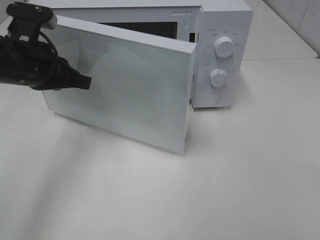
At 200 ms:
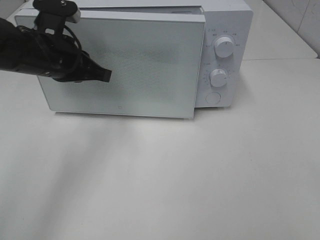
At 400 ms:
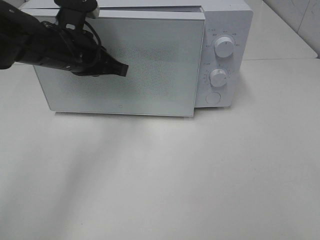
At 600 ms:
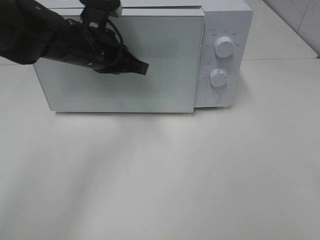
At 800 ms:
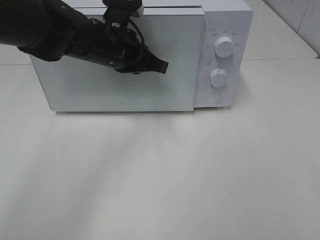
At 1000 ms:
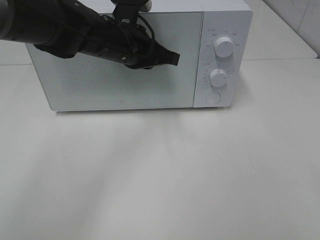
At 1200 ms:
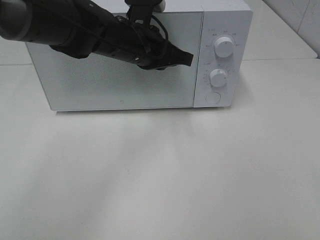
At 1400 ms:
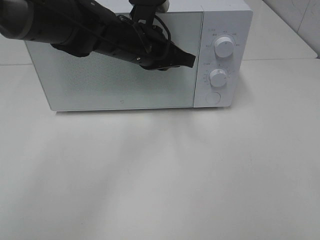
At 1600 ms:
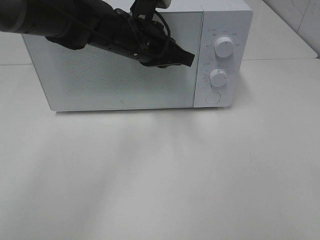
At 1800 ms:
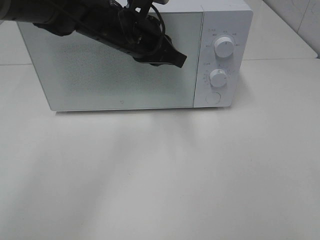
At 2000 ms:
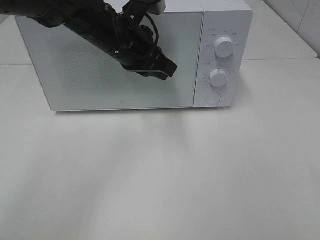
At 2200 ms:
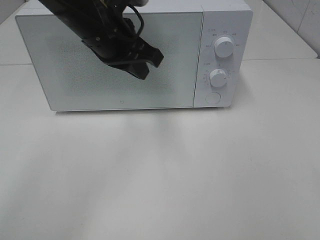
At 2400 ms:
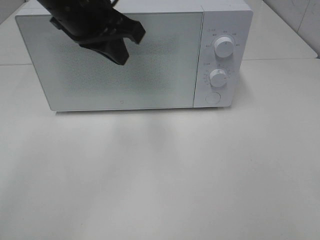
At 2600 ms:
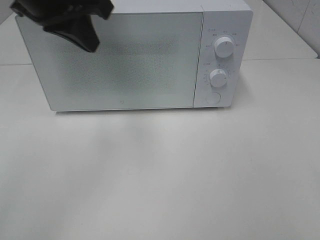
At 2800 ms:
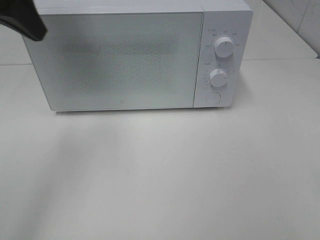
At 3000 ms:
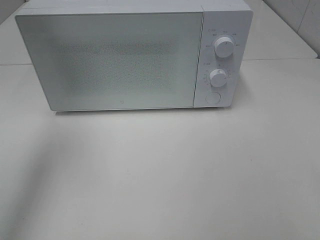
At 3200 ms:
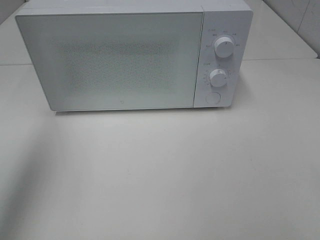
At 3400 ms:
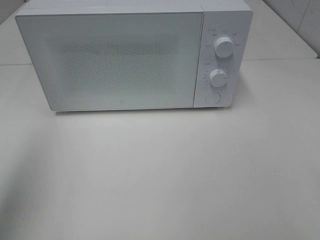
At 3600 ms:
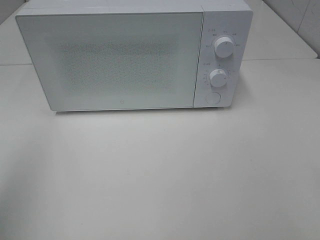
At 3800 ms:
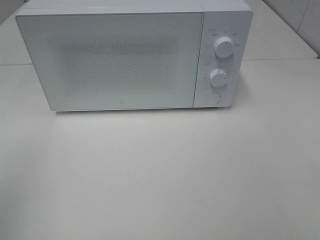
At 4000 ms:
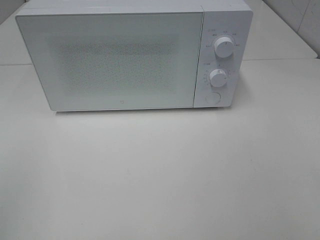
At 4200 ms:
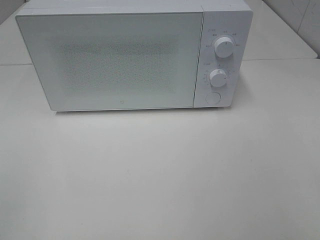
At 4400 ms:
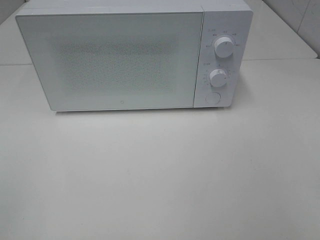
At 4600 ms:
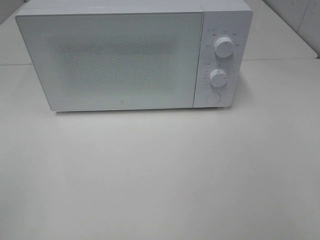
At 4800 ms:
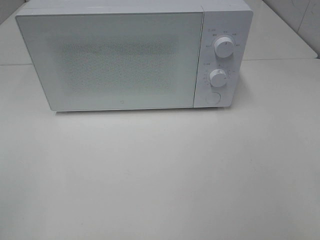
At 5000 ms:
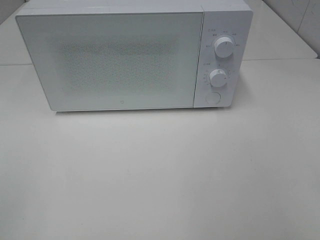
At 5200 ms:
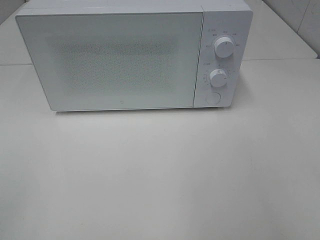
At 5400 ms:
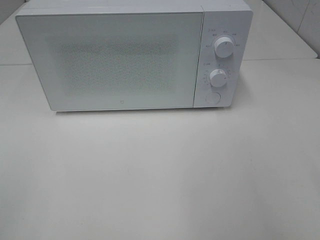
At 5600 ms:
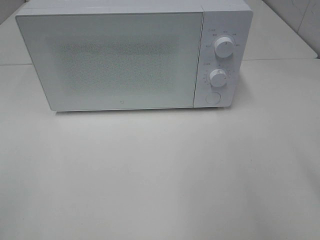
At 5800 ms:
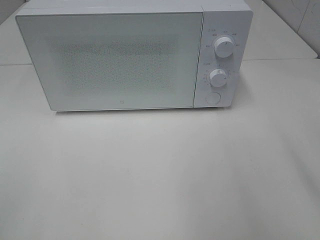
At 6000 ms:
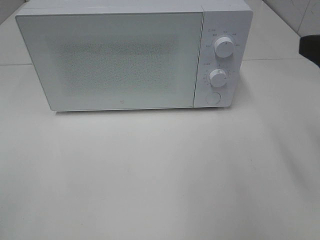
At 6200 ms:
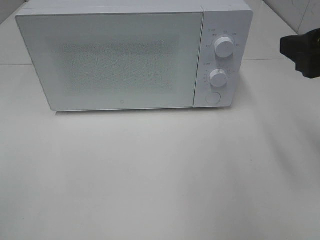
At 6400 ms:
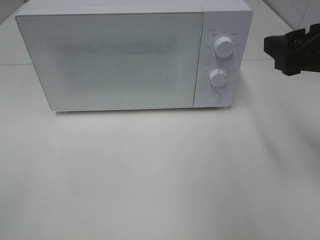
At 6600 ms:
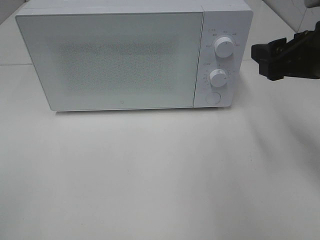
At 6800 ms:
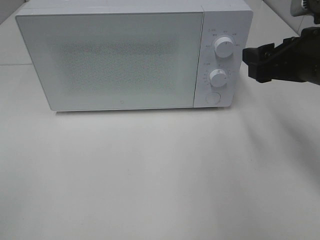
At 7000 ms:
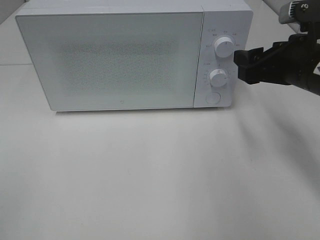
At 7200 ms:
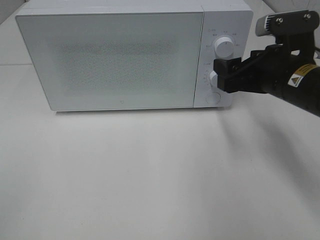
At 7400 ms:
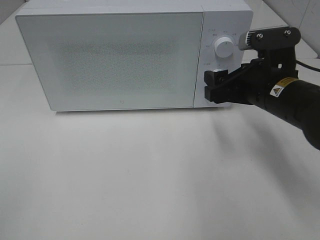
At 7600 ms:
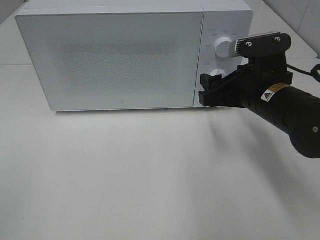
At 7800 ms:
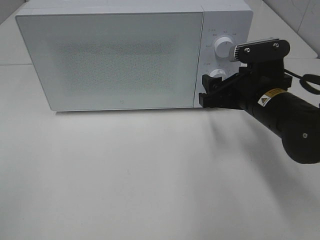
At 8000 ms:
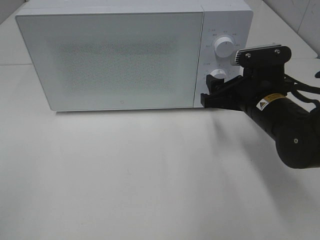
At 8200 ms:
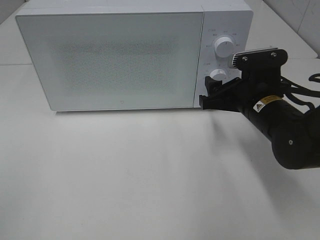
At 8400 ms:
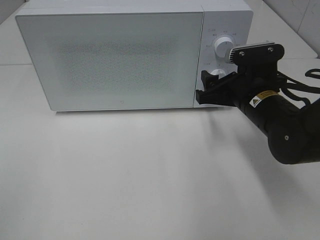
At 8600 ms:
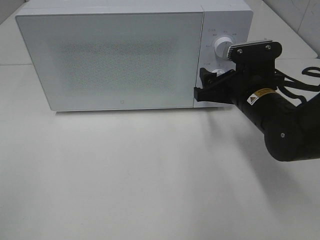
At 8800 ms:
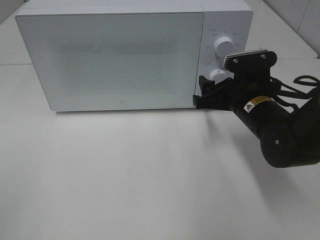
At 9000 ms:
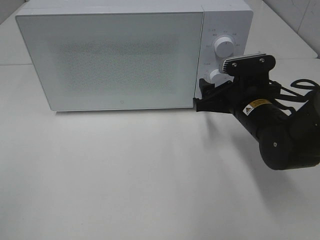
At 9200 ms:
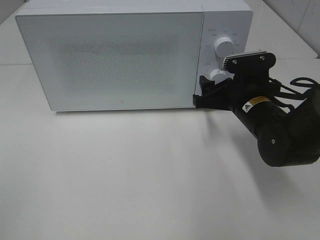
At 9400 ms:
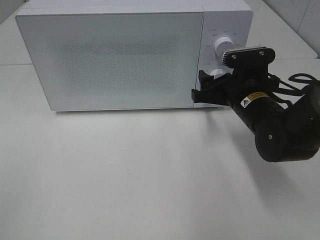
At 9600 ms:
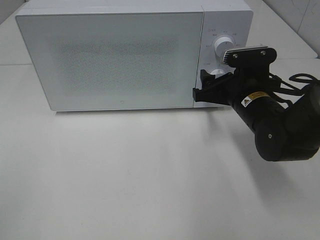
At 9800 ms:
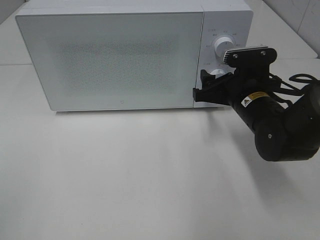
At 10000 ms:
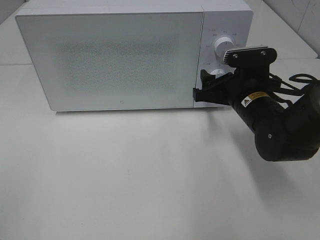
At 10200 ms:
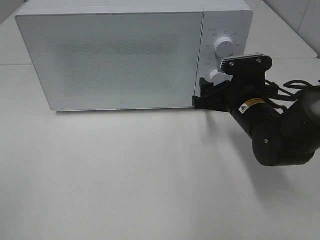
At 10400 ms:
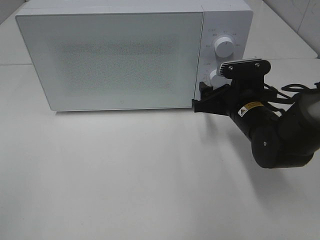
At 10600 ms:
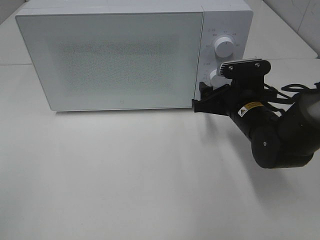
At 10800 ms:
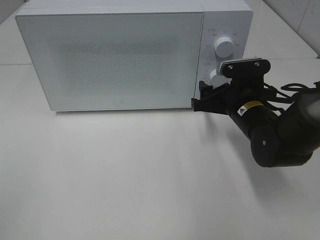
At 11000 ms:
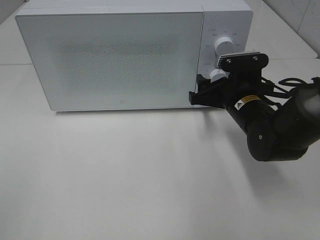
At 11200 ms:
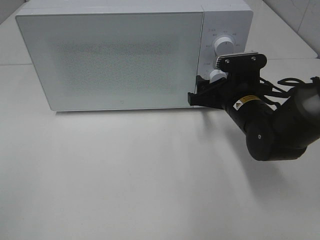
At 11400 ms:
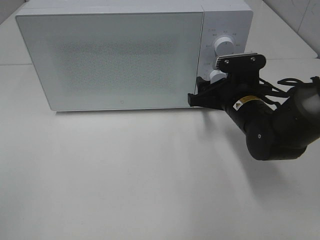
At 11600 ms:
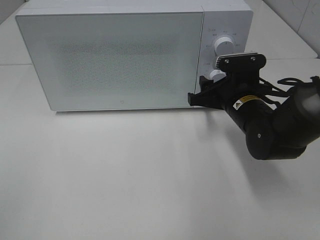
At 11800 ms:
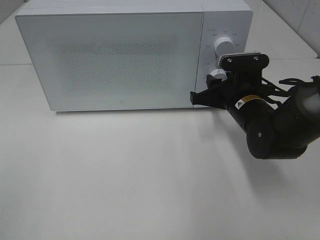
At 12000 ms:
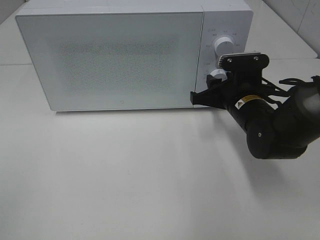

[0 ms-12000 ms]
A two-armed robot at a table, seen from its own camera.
Task of the whole recording: Heat the burger.
0 ms to 1600 ms: The left gripper moves to the right and forward, approximately 15 cm.
1600 ms to 3000 ms: The left gripper moves to the left, upward and backward, some 30 cm.
3000 ms to 4400 ms: The left gripper travels backward by about 25 cm.
4400 ms to 6000 ms: The right gripper travels forward by some 15 cm.
6000 ms to 7600 ms: The right gripper travels downward, forward and to the left by approximately 20 cm.
7600 ms to 9000 ms: The right gripper changes place by about 5 cm.
9000 ms to 10400 ms: The grippers move only a little.
10400 ms to 12000 ms: The right gripper closes.

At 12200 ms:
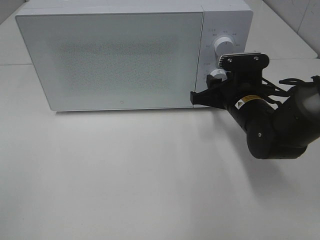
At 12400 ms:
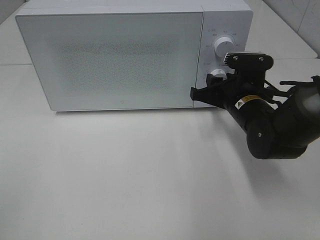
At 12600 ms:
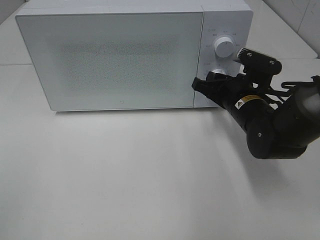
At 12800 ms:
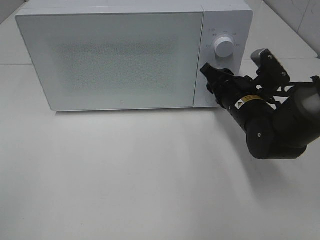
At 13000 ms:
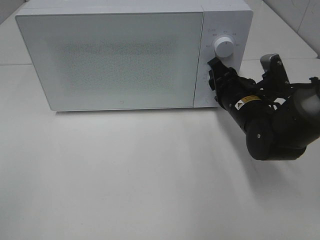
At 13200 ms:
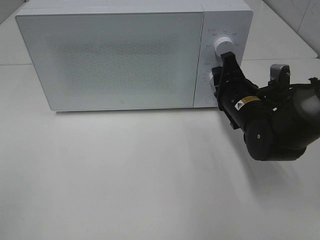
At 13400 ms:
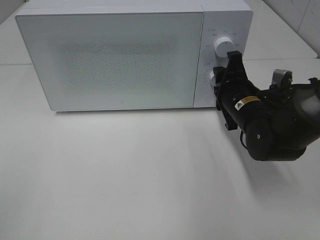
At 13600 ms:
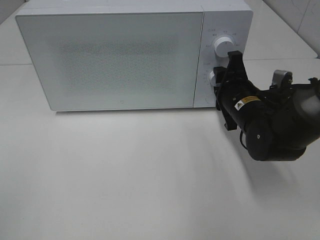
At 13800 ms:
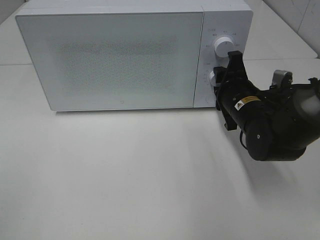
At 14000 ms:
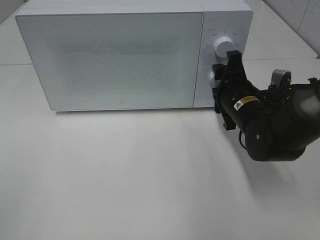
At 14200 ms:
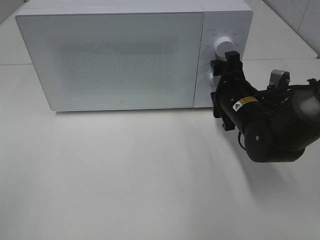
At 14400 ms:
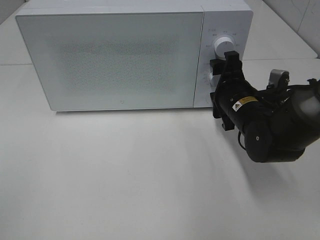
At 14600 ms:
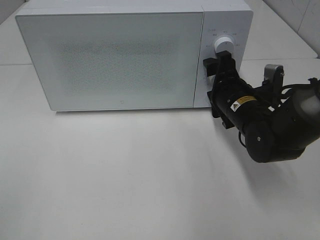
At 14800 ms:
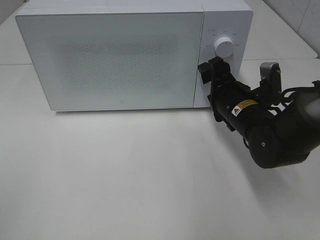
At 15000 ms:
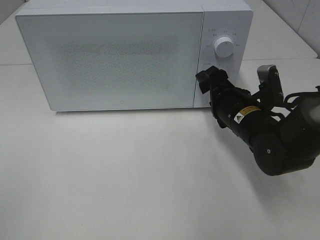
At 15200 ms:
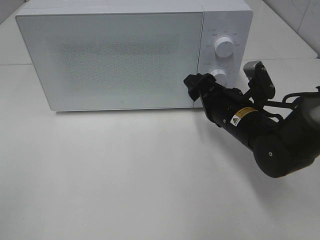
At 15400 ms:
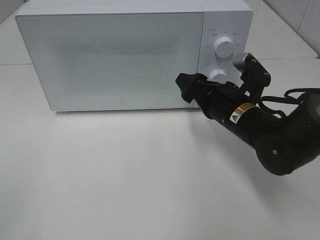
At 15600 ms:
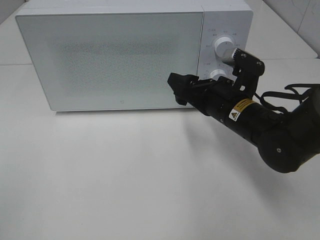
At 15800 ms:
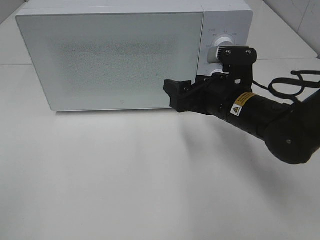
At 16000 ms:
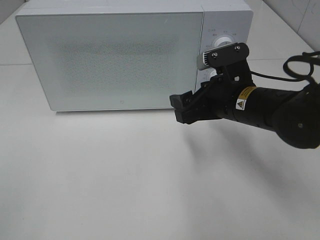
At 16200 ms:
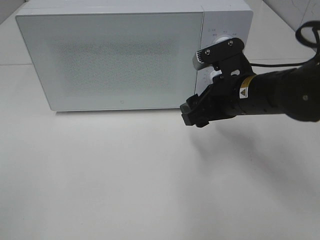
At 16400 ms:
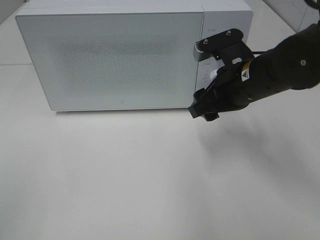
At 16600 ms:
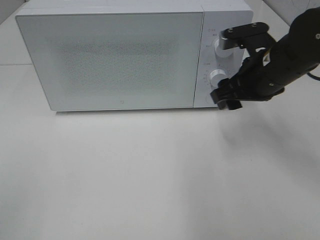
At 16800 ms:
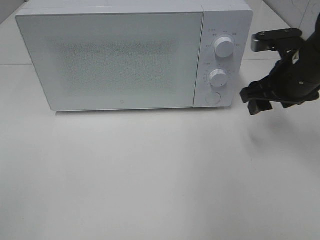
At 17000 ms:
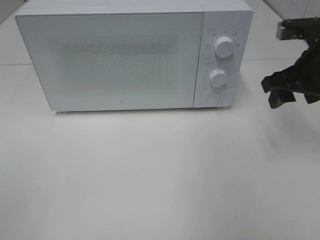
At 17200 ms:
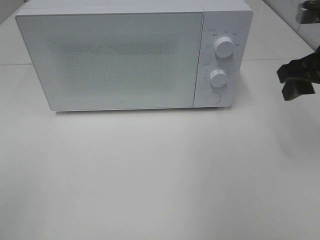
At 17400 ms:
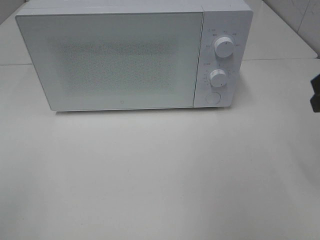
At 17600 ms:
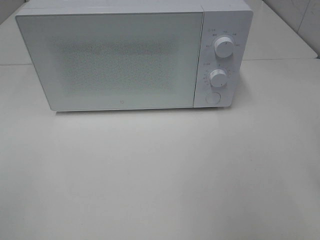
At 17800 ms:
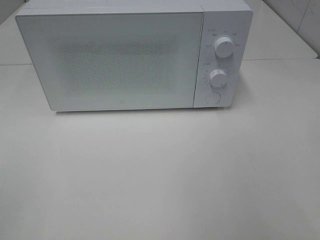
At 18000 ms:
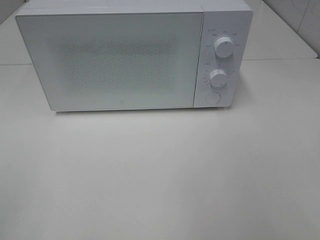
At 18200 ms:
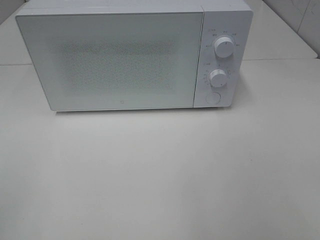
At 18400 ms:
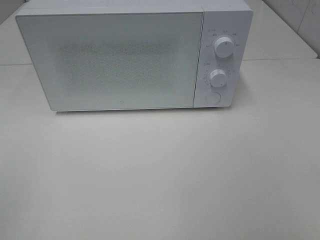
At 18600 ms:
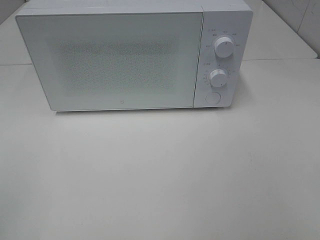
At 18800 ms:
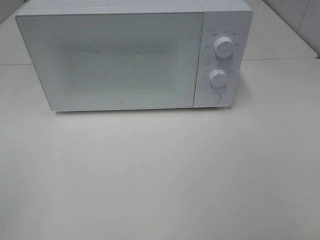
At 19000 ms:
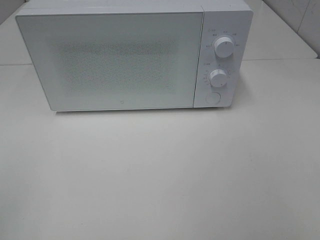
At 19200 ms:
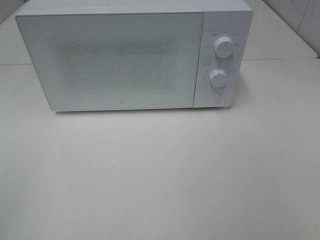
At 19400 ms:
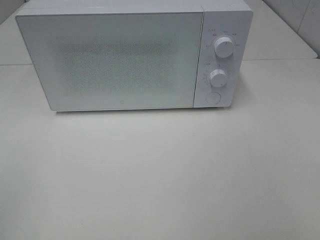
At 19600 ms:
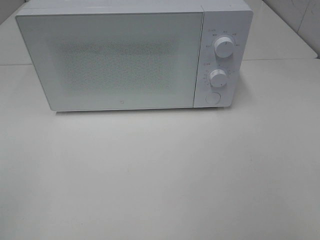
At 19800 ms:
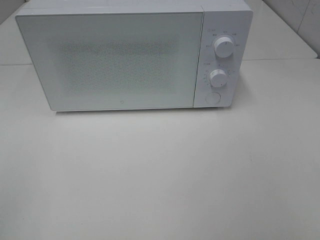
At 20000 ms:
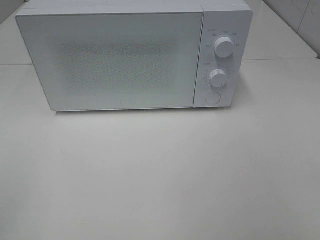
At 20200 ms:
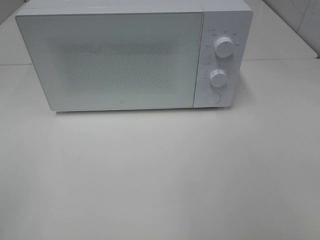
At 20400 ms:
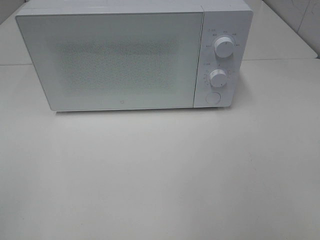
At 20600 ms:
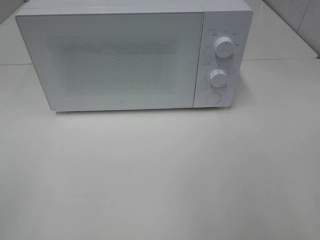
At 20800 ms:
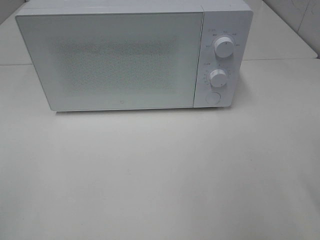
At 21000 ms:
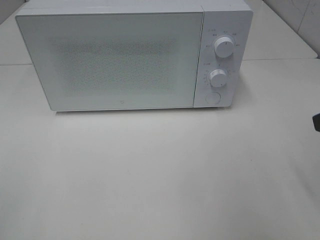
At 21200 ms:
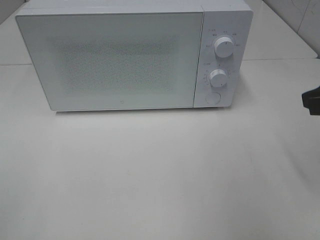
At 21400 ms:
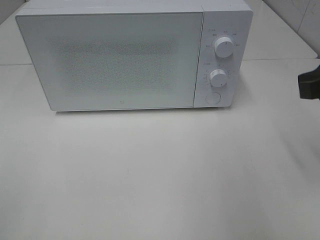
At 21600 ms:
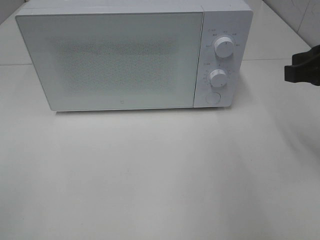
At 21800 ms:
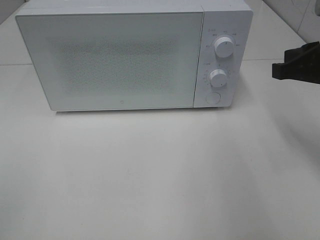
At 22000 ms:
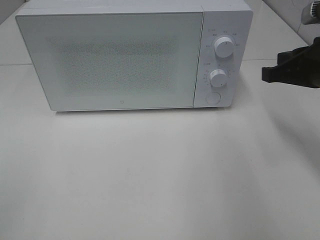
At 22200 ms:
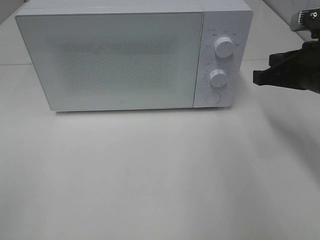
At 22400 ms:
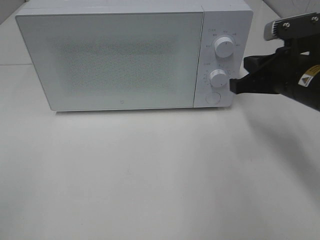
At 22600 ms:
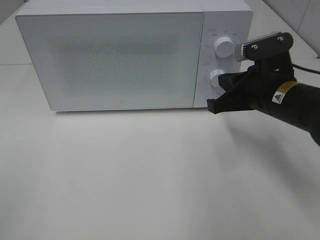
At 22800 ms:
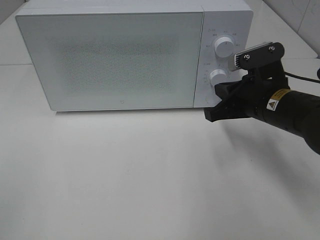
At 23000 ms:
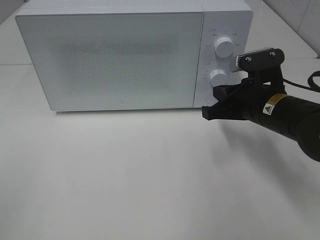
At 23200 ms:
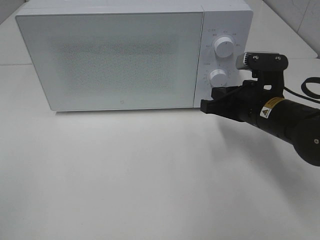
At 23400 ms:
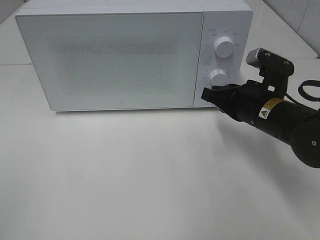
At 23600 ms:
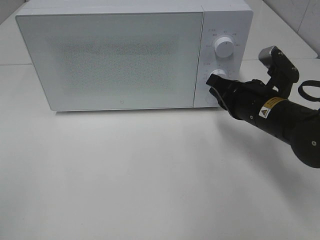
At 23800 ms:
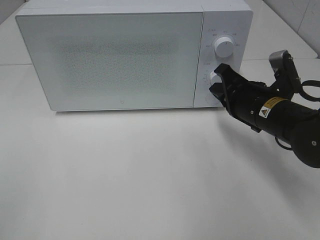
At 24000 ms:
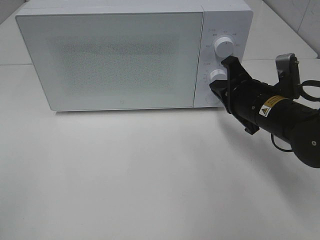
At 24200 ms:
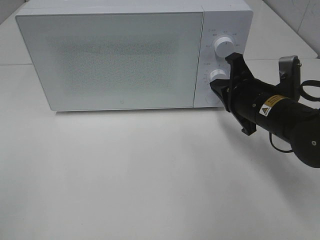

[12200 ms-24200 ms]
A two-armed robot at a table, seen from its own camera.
Task of the whole recording: Heat the burger.
13800 ms to 15200 ms: The right gripper opens up.
15200 ms to 16600 ms: The right gripper is displaced upward by roughly 10 cm.
16600 ms to 18200 ms: The right gripper heads backward and to the right, covering approximately 30 cm.
19800 ms to 21200 ms: The right gripper goes roughly 20 cm forward.
21200 ms to 22600 ms: The right gripper travels downward, forward and to the left by approximately 15 cm, and closes up.
